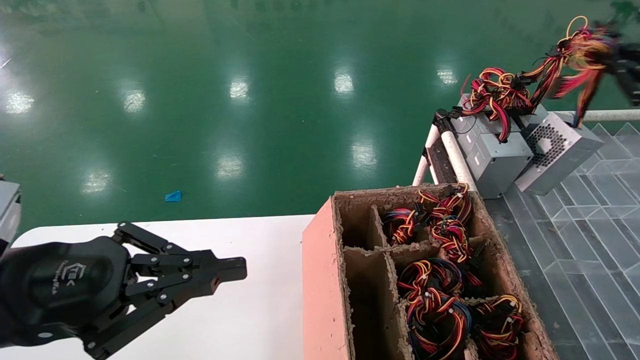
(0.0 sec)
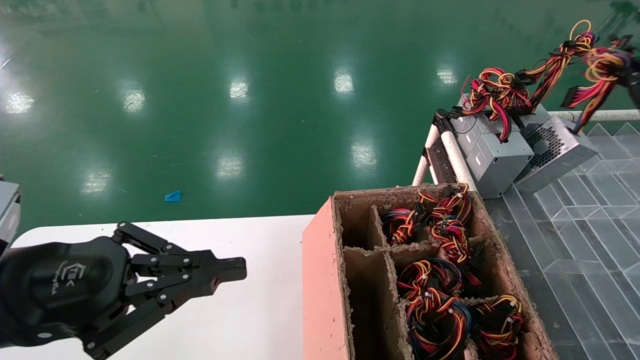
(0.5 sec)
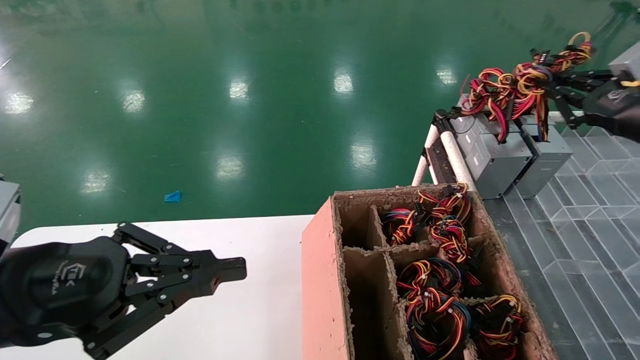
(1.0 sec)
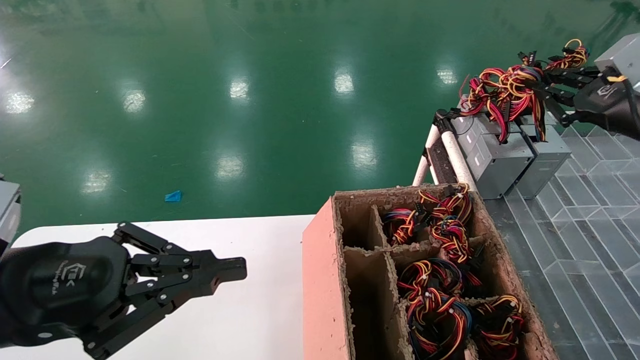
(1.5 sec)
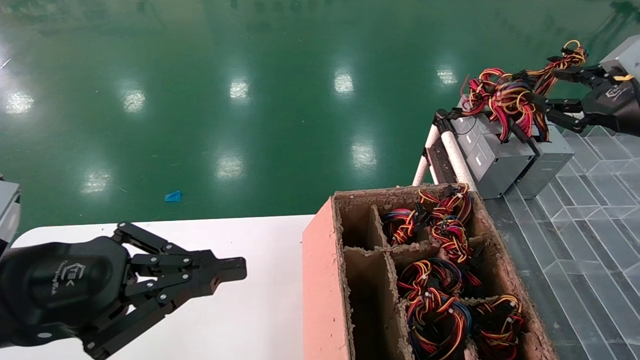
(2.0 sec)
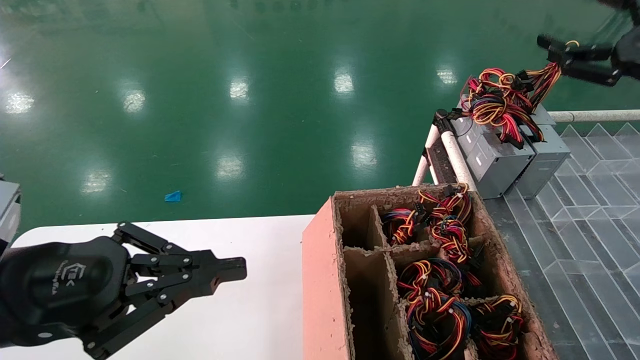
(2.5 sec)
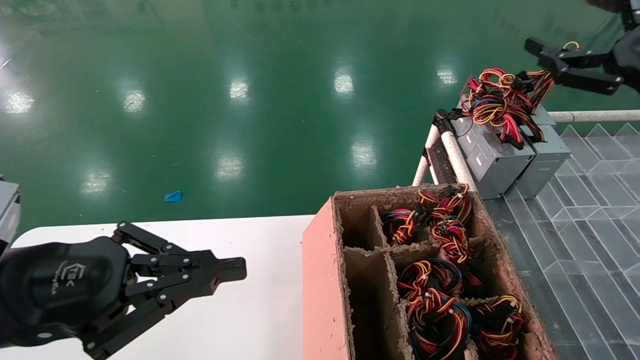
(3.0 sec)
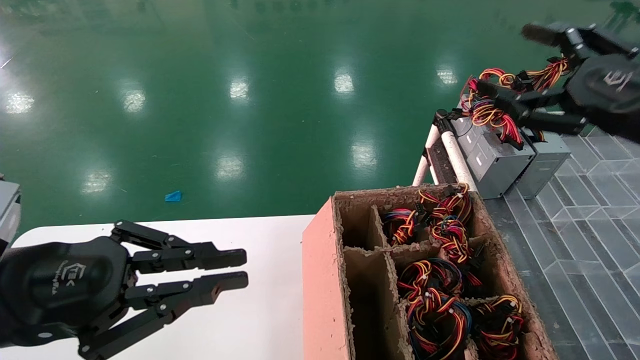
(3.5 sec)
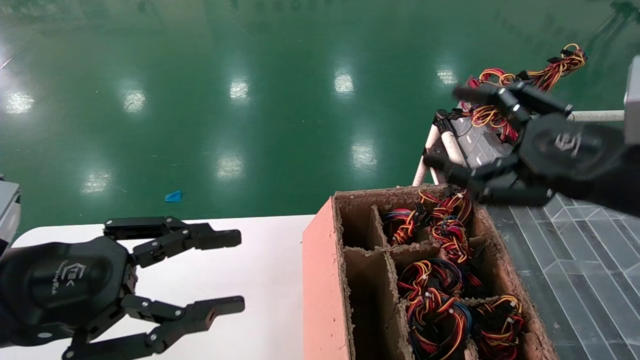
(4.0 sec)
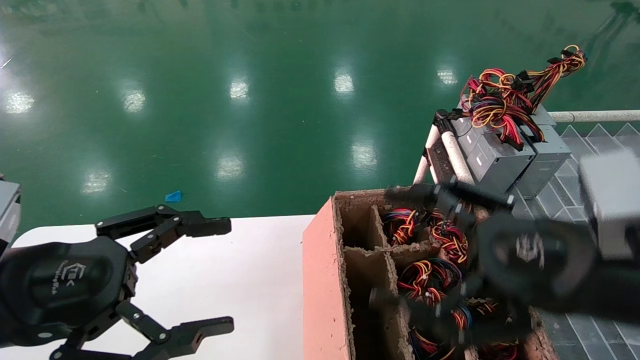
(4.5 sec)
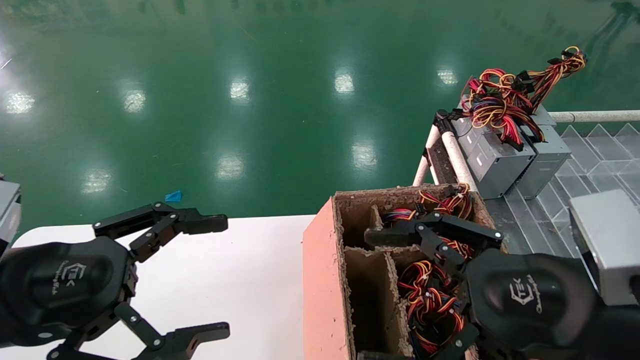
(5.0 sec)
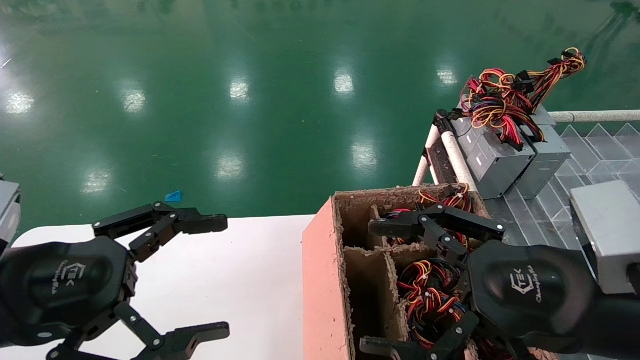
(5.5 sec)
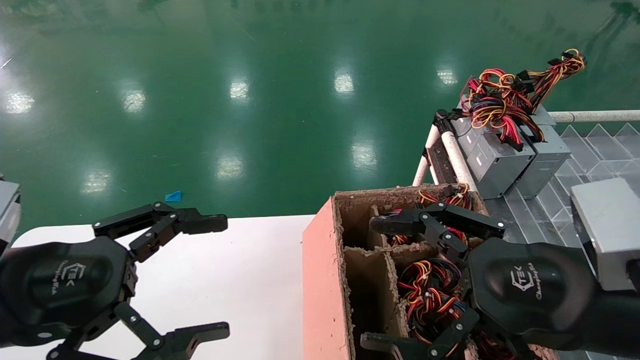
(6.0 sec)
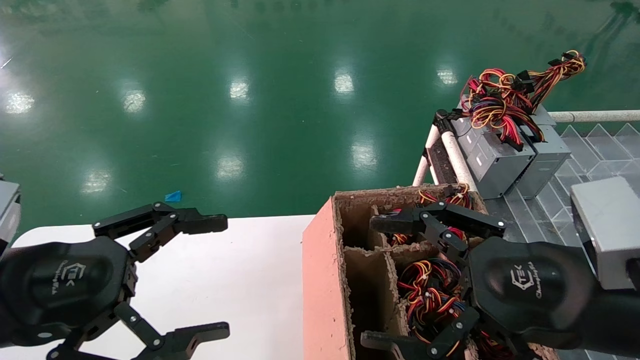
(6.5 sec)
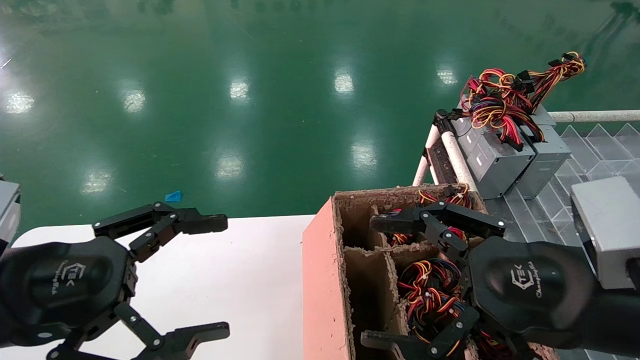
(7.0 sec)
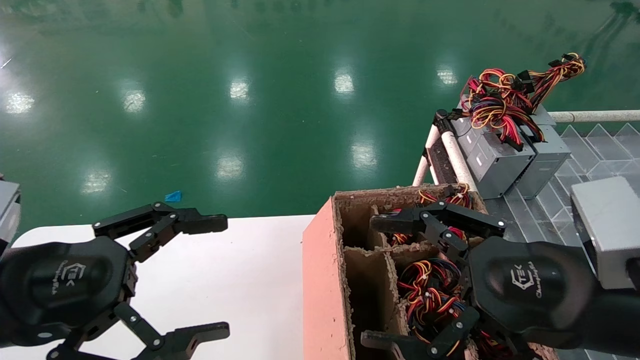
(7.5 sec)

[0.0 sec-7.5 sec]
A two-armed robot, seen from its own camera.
Step, 0.0 sec to 3.0 sec: Place the main unit power supply in the designated area.
0.0 sec to 2.0 sec: The right gripper ends up approximately 5 cm from where it was.
2.0 sec to 4.0 sec: The left gripper opens up. The right gripper heads to the left and backward, covering about 20 cm, and opens its fingers.
4.0 sec to 5.5 sec: The left gripper opens. The right gripper travels to the left, downward and backward by about 10 cm.
5.5 sec to 7.5 sec: Neither gripper changes place.
